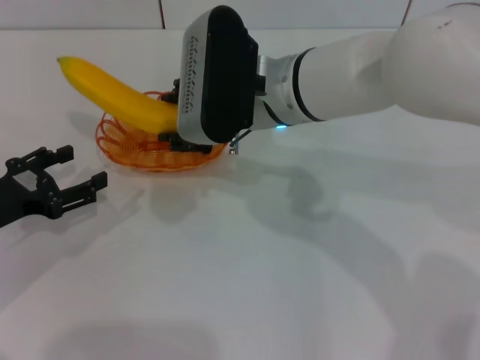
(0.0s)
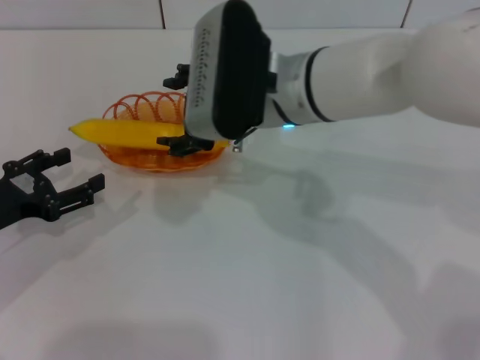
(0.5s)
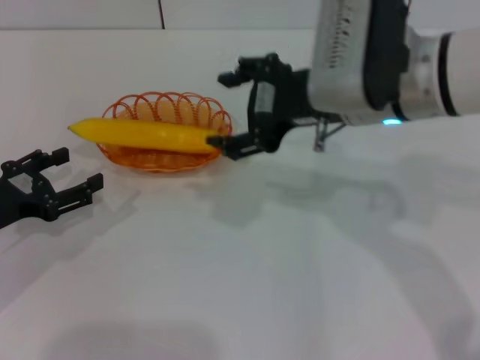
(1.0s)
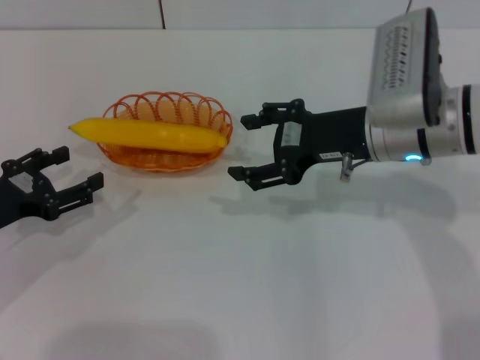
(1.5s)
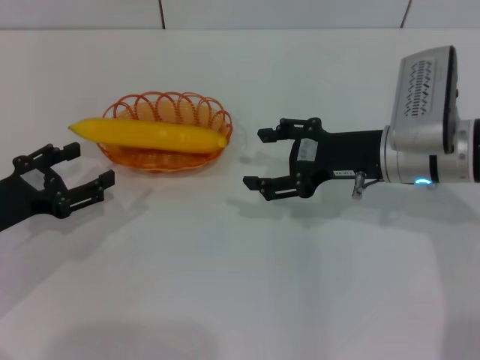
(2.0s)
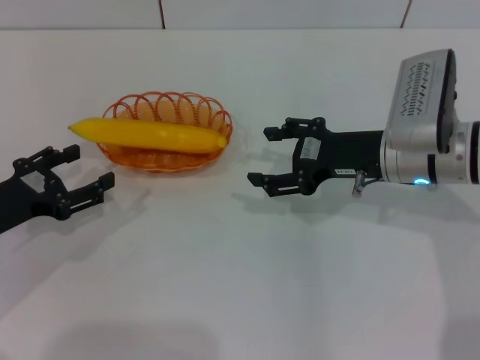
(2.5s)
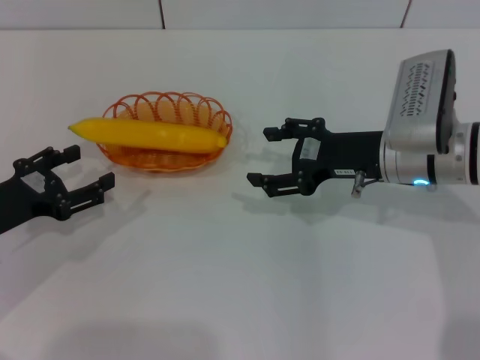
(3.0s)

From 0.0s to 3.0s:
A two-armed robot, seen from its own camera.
From 0.0s to 1.5s: The right gripper is displaced to the right by some 15 cm, and opens.
From 1.5s to 3.0s: The grippers make only small movements.
